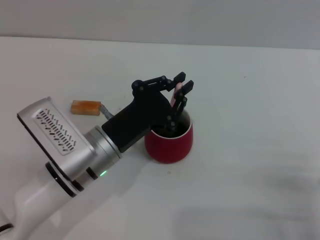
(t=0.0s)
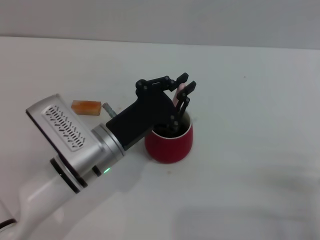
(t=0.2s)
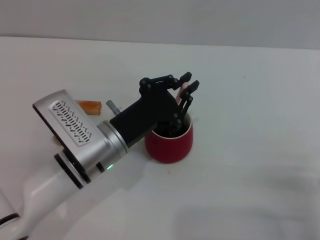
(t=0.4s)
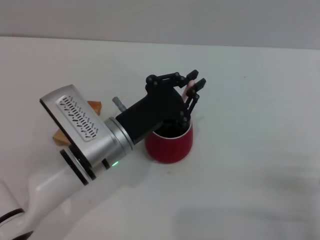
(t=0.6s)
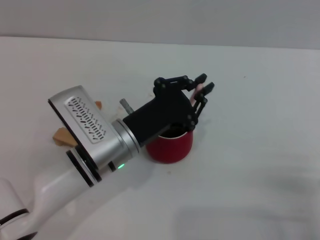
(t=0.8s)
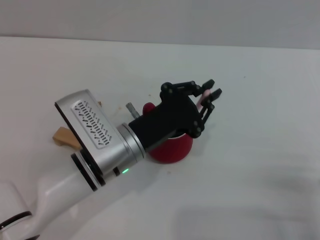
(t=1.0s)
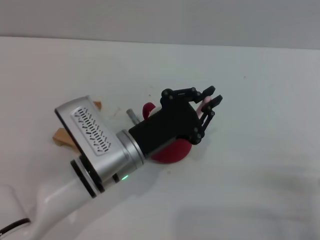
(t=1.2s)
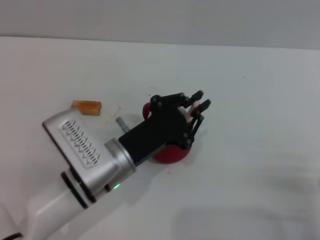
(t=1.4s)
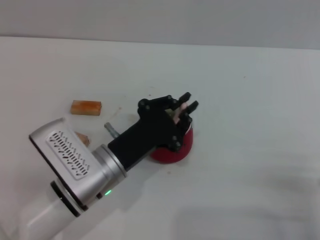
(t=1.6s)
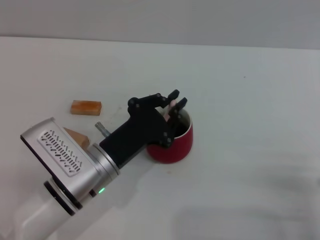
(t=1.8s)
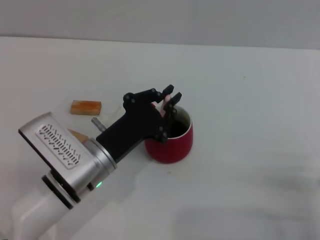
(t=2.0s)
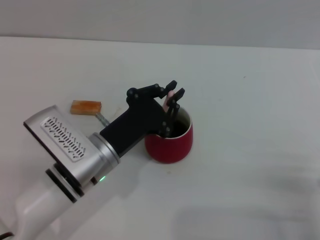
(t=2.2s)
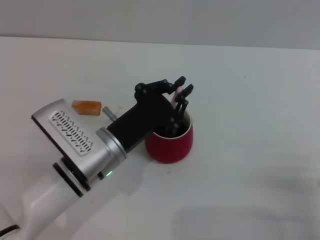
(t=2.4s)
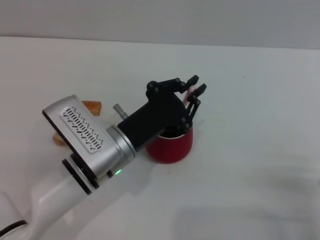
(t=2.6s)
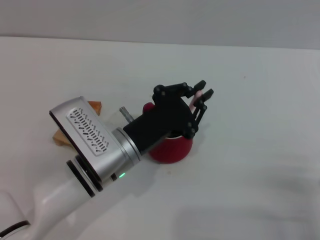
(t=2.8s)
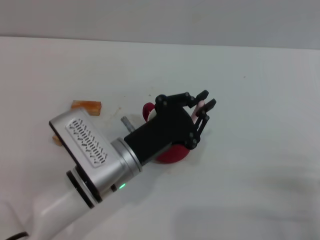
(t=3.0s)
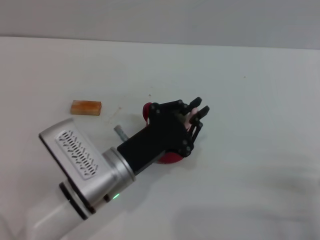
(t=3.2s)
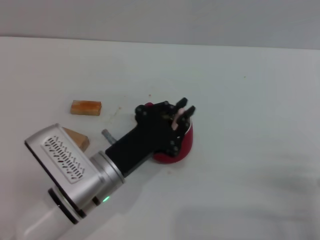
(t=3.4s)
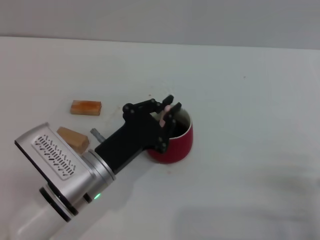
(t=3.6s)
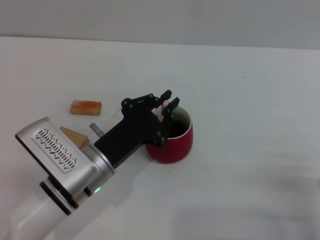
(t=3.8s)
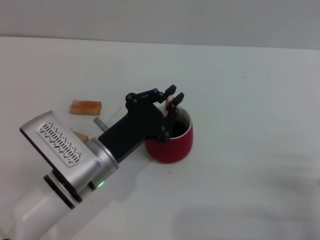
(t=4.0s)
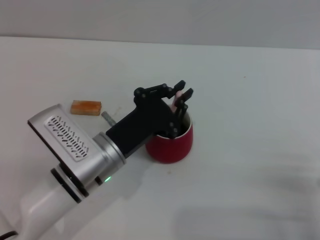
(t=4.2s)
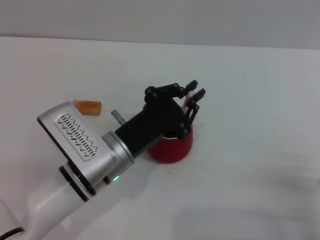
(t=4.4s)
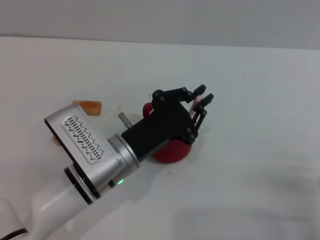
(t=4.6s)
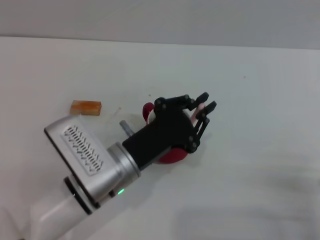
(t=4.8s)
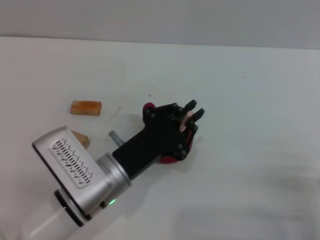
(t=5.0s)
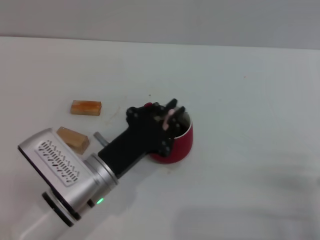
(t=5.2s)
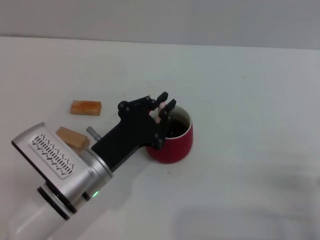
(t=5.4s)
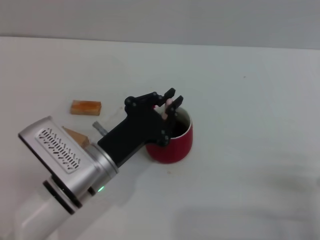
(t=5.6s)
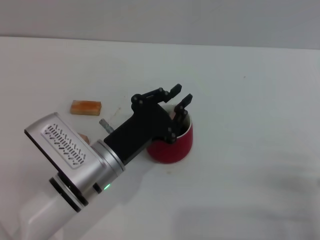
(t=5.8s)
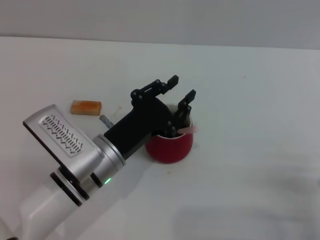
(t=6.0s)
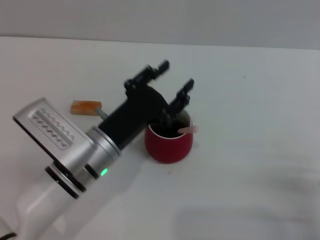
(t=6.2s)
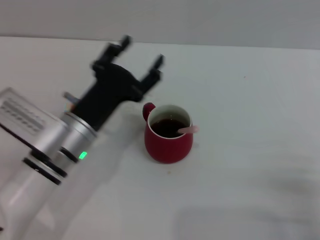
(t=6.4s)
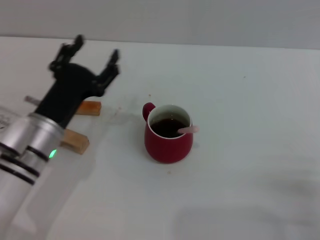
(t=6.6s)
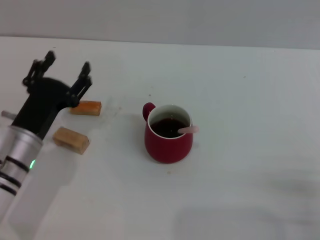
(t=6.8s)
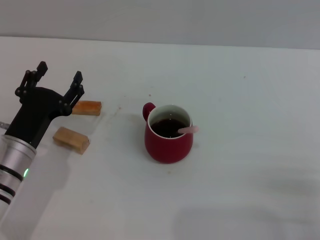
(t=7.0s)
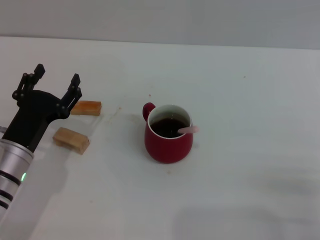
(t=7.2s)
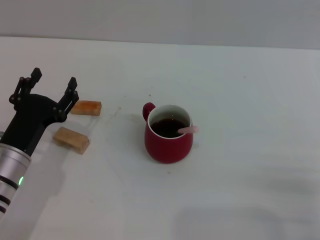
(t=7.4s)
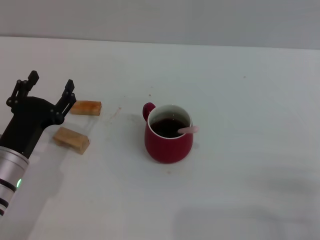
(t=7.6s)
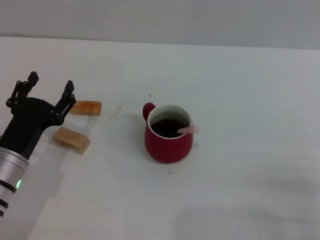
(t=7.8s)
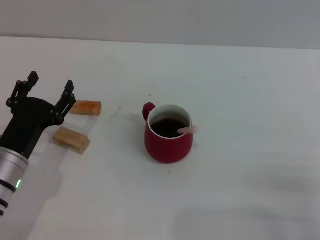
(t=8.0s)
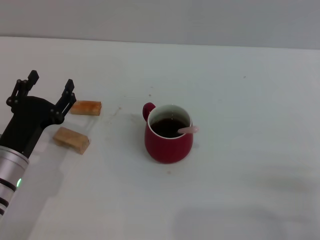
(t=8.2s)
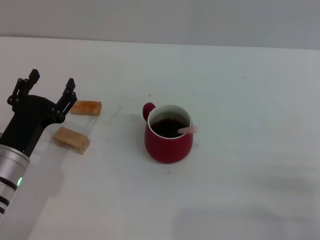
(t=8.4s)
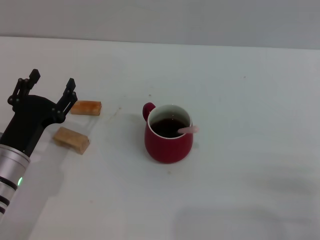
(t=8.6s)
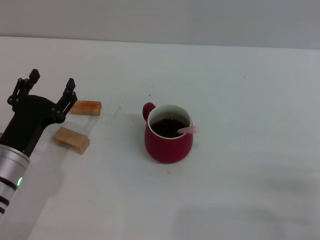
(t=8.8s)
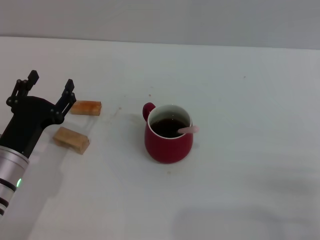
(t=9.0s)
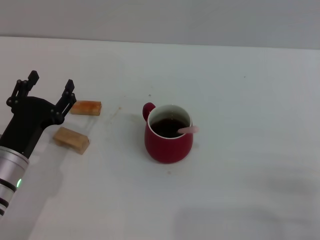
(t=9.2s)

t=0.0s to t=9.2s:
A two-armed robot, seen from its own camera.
Task of the whole recording: Move the red cup to the center, lift the pink spoon, stir it three times in the cup, and put the spoon into the cup.
Step, t=0.0s to t=6.2s: Stir the coffee in the cup with the left gripper.
t=0.0s to t=4.6s: The grippers move only a little.
t=4.6s to t=6.2s: The left gripper opens its fingers.
t=6.2s to t=7.6s: The left gripper travels to the left by approximately 10 cm, and opens its fingers.
t=7.6s to t=9.2s: Both grippers stay about where they are.
